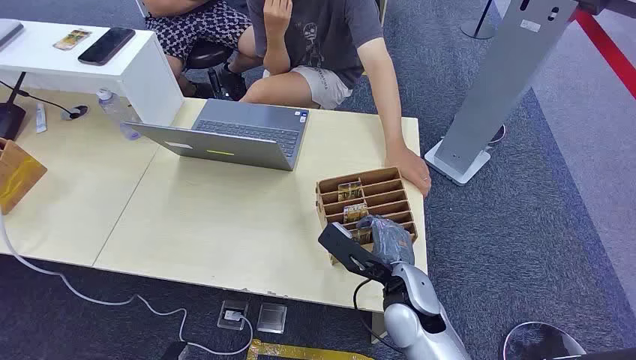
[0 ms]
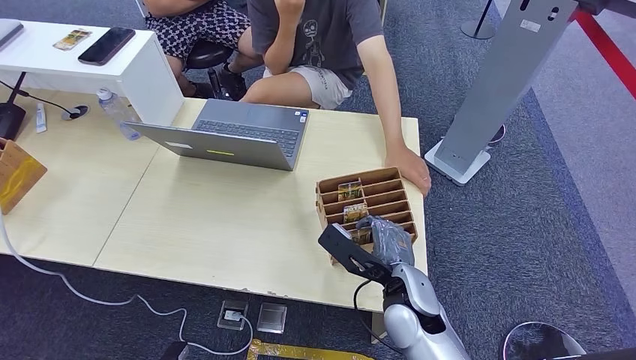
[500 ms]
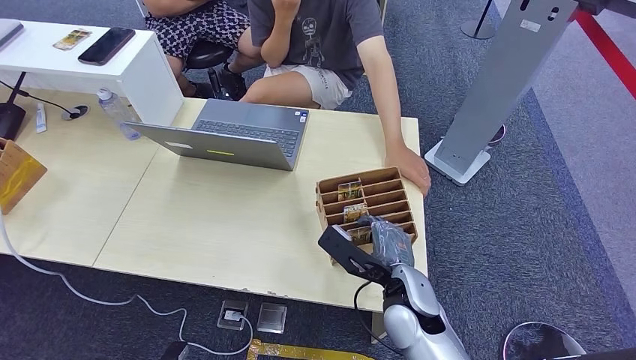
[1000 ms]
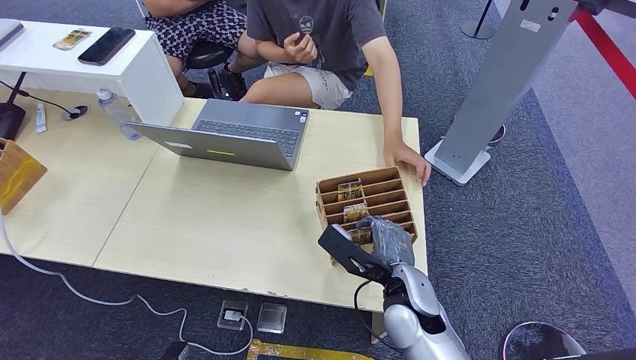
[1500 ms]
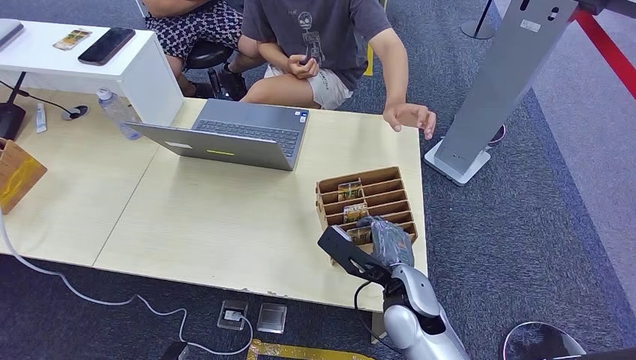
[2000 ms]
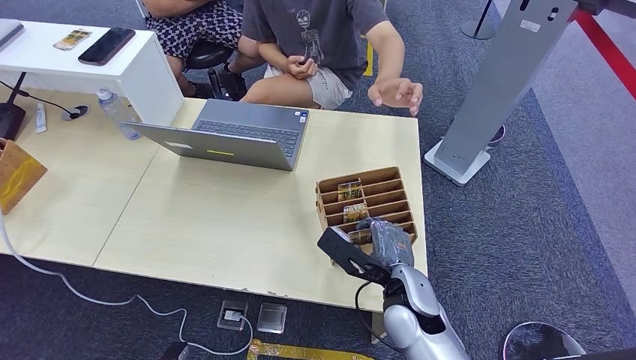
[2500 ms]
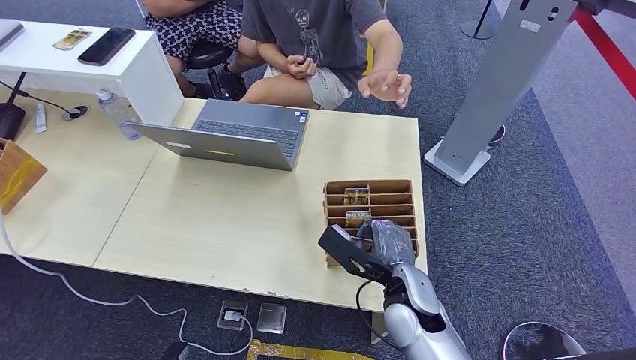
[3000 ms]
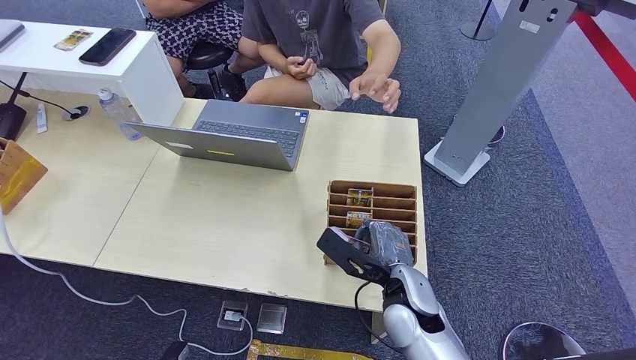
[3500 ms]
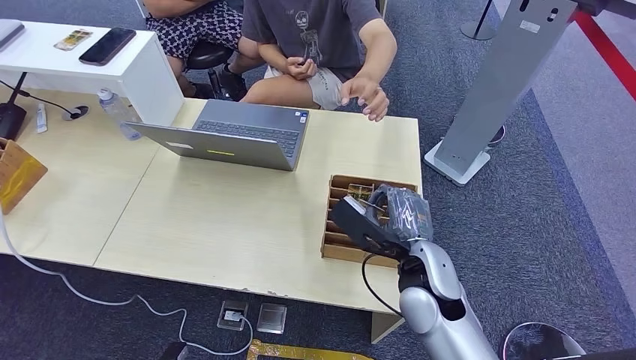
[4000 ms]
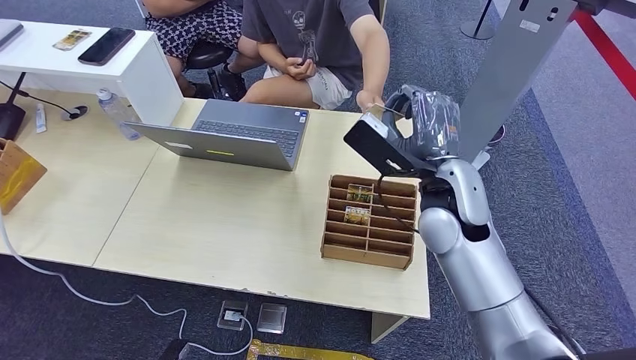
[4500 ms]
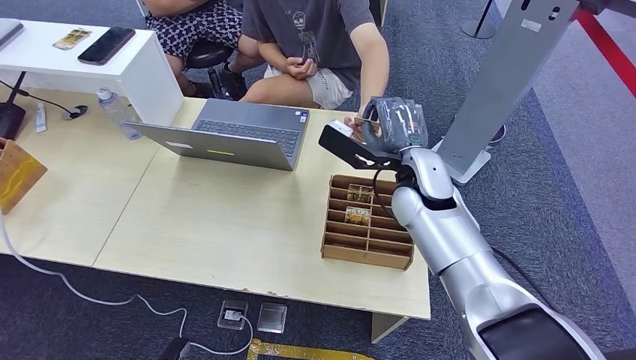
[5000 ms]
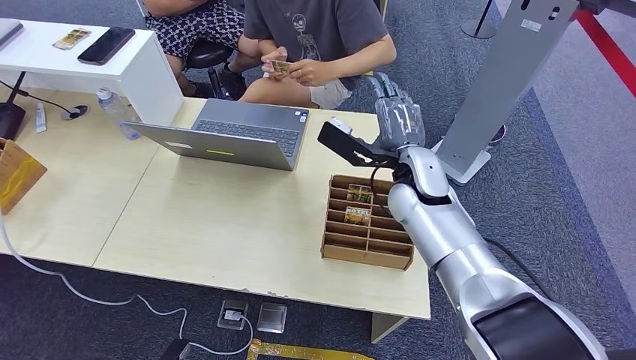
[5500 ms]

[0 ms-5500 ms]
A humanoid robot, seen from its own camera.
Step, 0 ms to 3500 ms: Pick up the room card from the card holder.
Step, 4500 ms to 5500 ms: Hand the room card to the target.
2000 ms to 3500 ms: Both hands stay put.
3500 ms to 5500 ms: The right hand travels forward and upward by some 20 cm.
